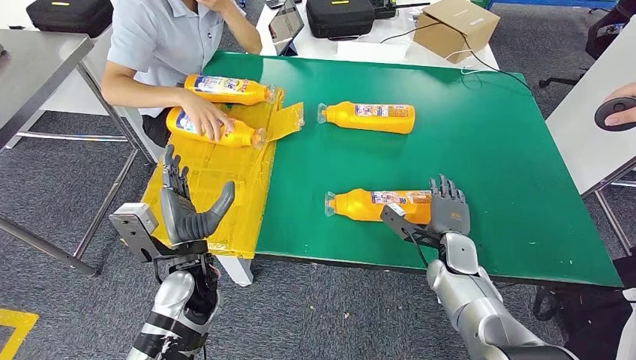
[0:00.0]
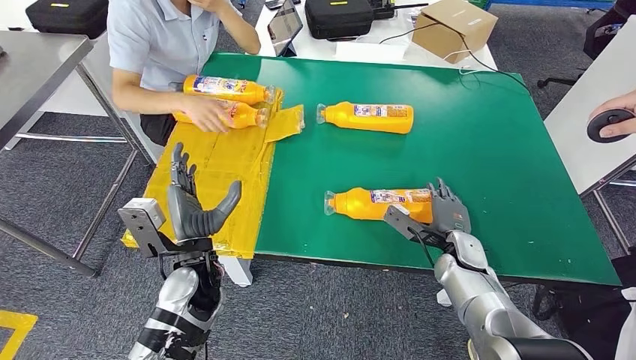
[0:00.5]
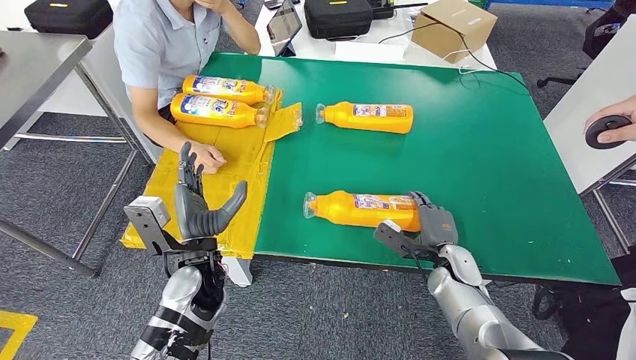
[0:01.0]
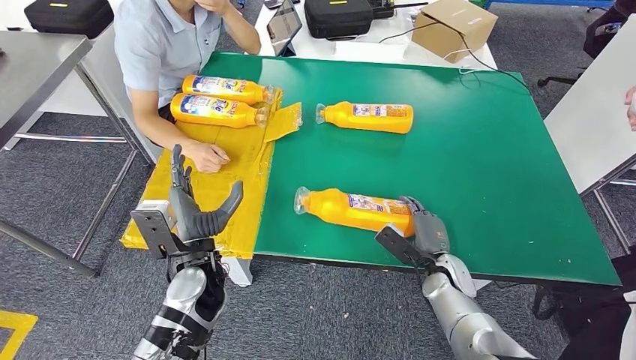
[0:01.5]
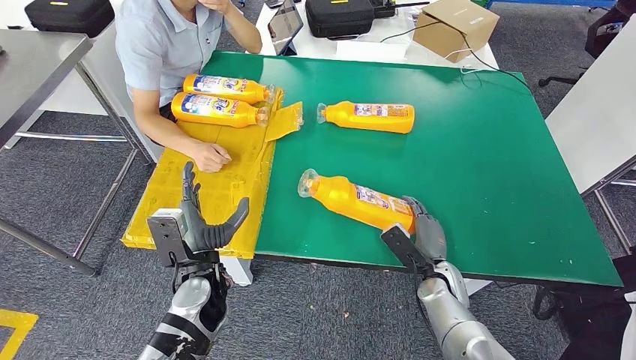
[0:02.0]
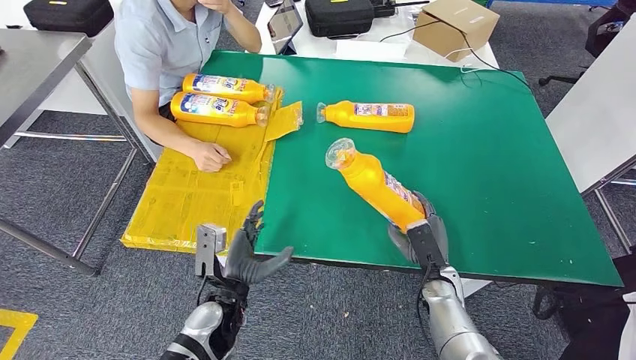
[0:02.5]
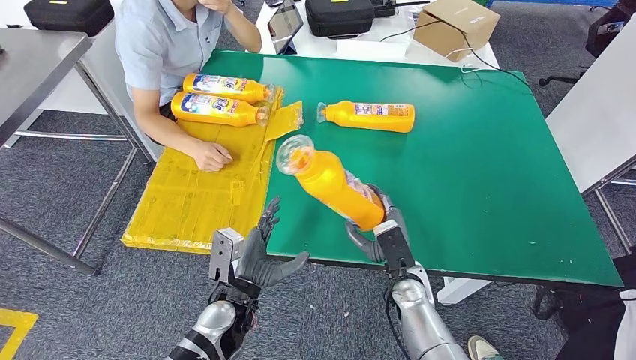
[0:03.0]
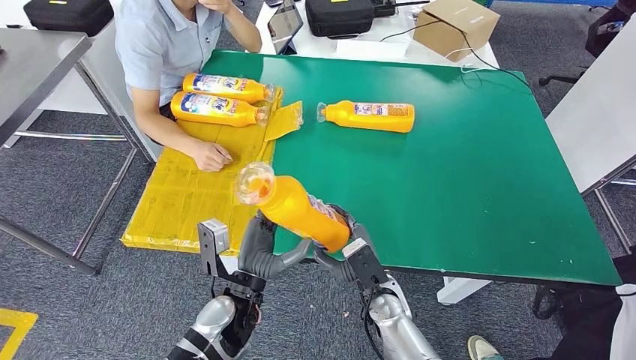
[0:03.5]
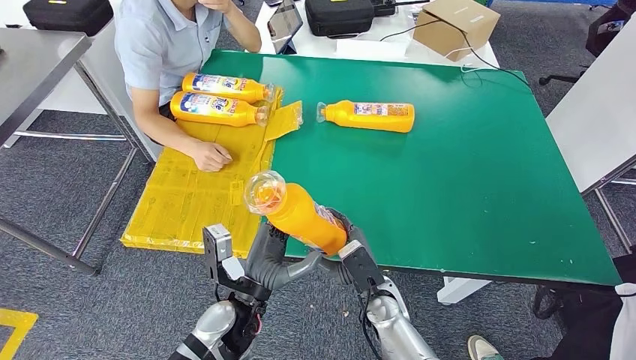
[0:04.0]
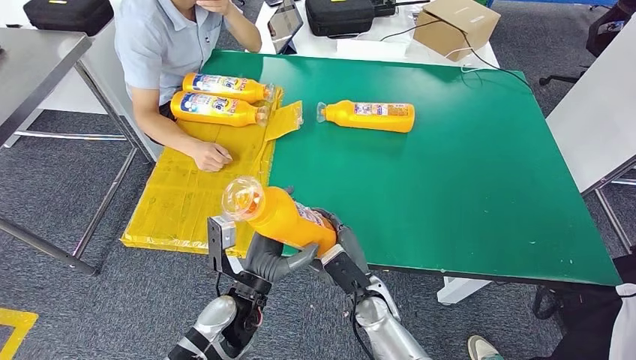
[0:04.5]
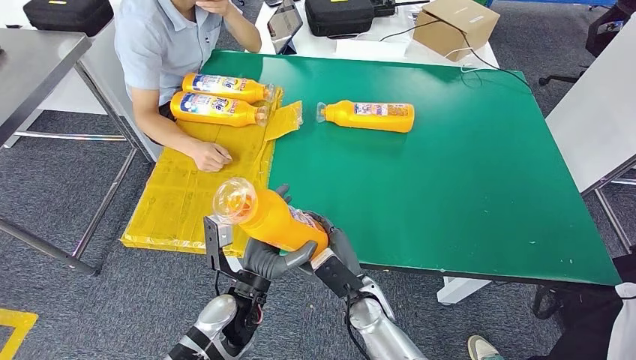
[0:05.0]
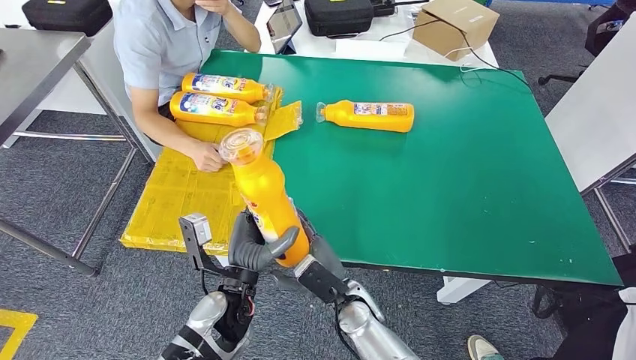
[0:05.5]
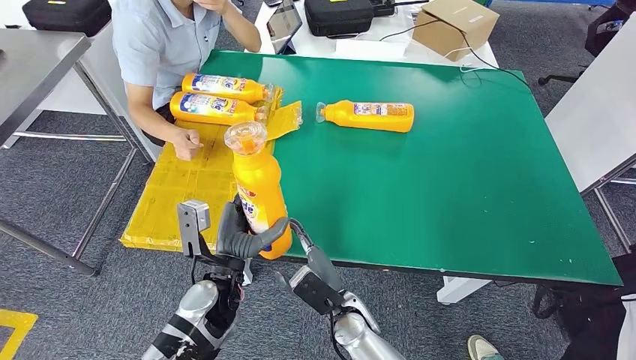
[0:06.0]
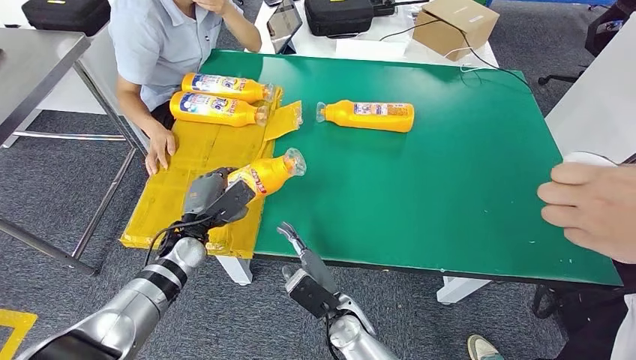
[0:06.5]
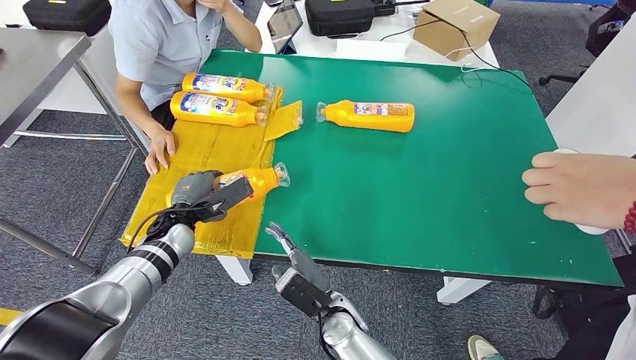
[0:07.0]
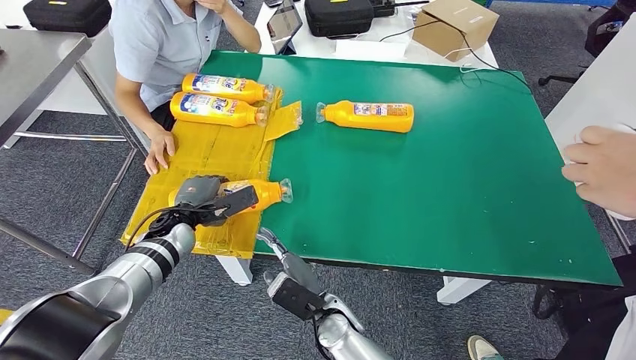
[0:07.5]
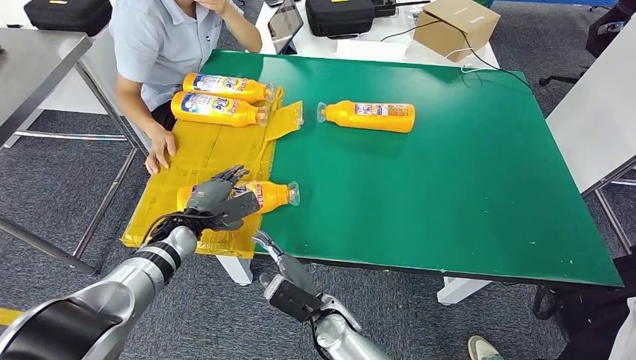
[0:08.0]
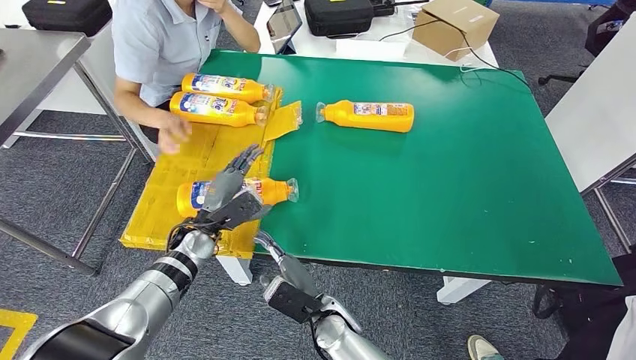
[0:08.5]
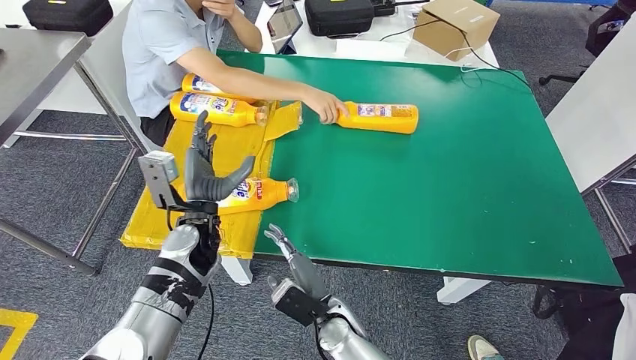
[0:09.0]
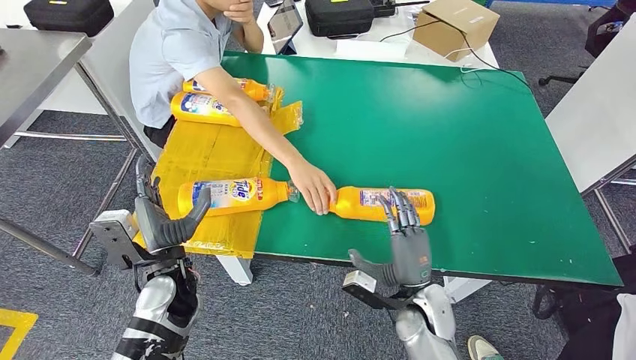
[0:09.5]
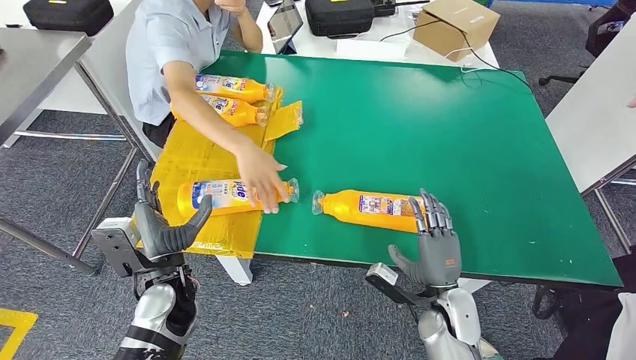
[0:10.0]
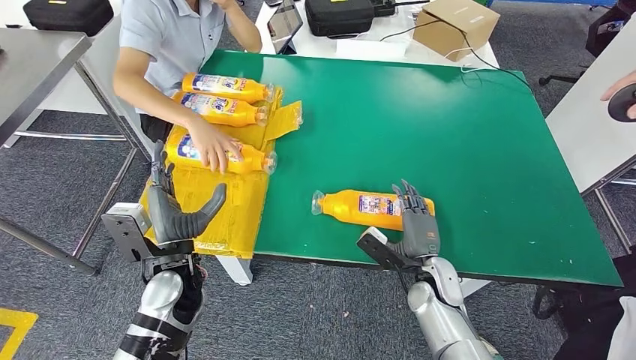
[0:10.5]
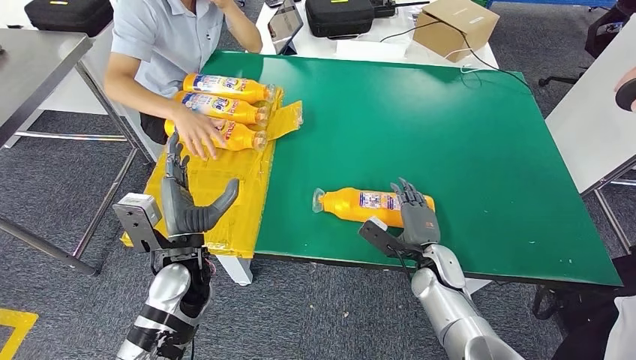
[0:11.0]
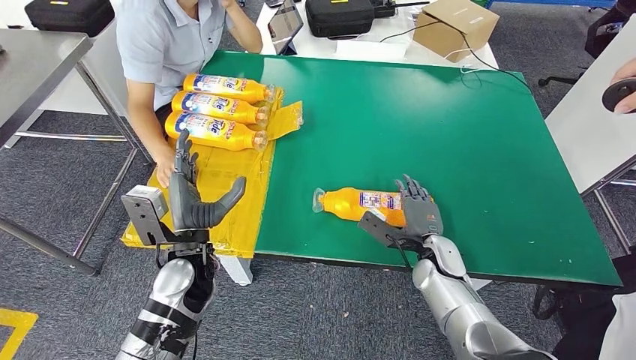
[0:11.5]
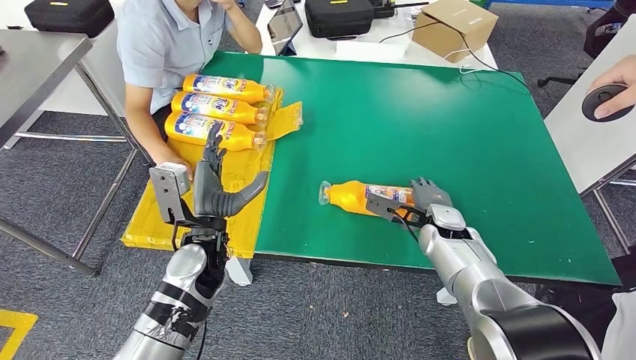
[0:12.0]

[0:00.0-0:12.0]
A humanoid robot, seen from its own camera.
Step, 0:00.0 to 0:03.0: Pick up the fast-moving consumer goods bottle from the table.
Step, 0:03.5 to 0:08.5: Flip the fast-moving consumer goods bottle to the front side.
0:00.0 to 0:02.0: The right hand shifts by some 5 cm.
0:02.0 to 0:04.0: The left hand travels to the right by approximately 5 cm. The right hand moves to the left, about 15 cm.
0:04.0 to 0:06.0: The left hand changes place by approximately 5 cm. Meanwhile the right hand moves to the left, some 5 cm.
0:06.0 to 0:08.0: The left hand travels forward and to the left by some 15 cm.

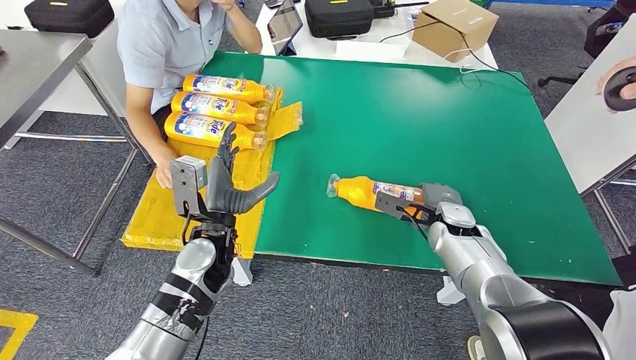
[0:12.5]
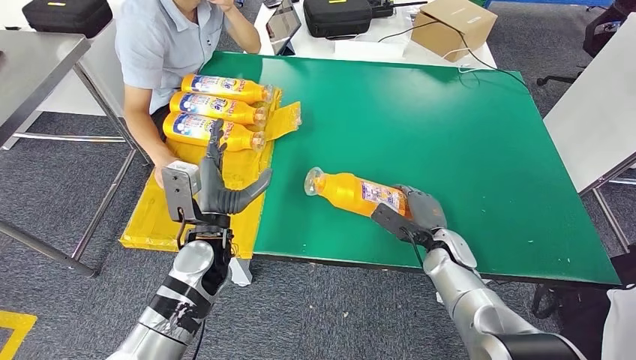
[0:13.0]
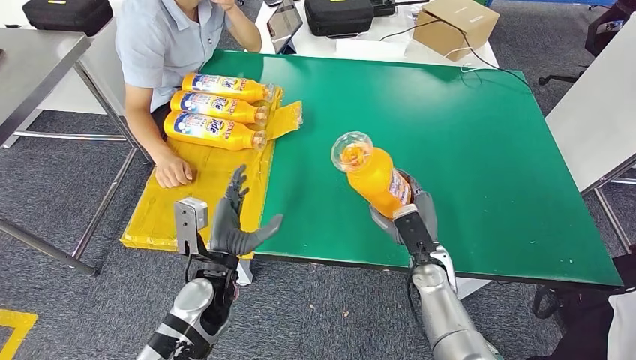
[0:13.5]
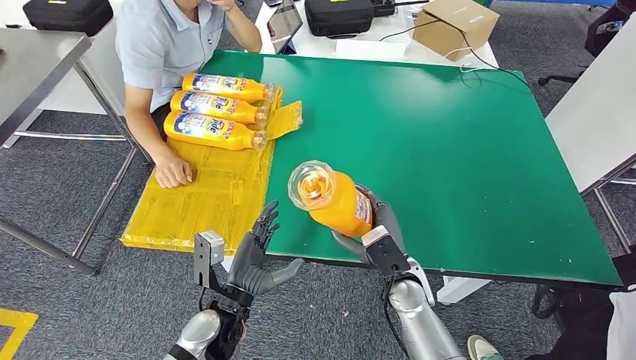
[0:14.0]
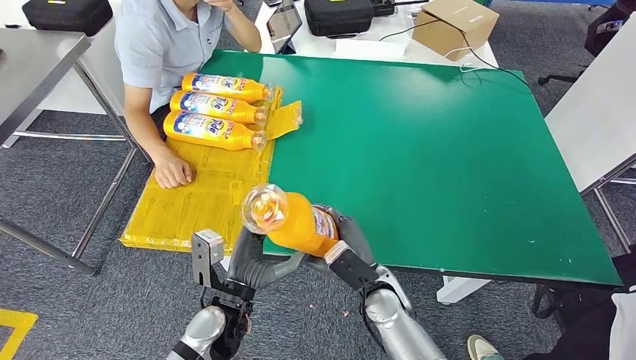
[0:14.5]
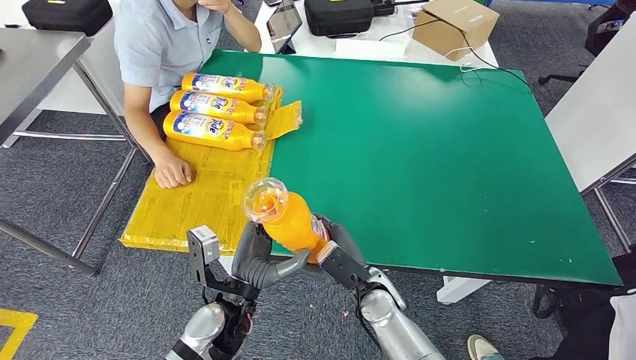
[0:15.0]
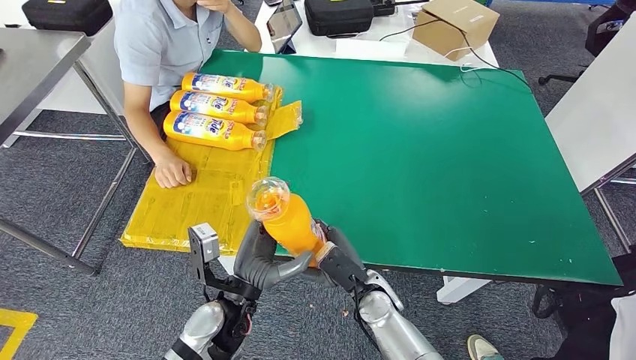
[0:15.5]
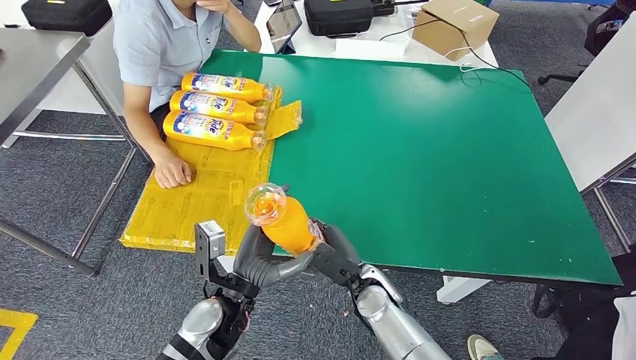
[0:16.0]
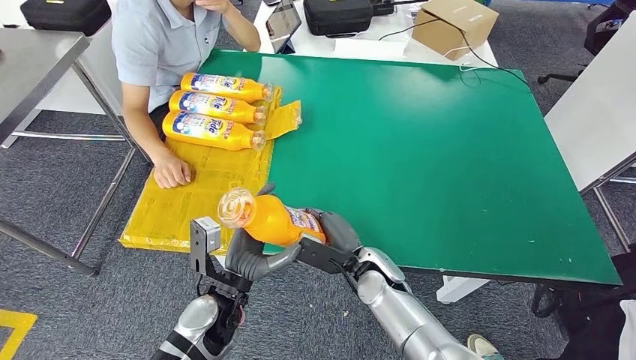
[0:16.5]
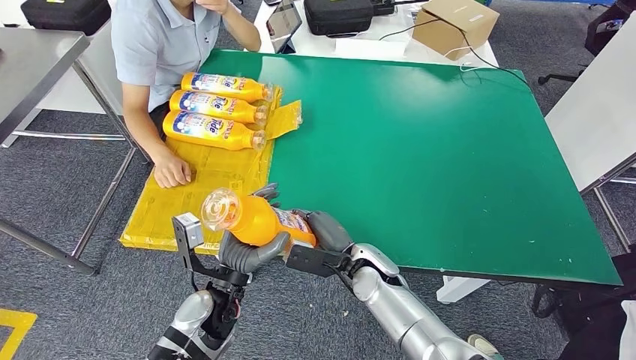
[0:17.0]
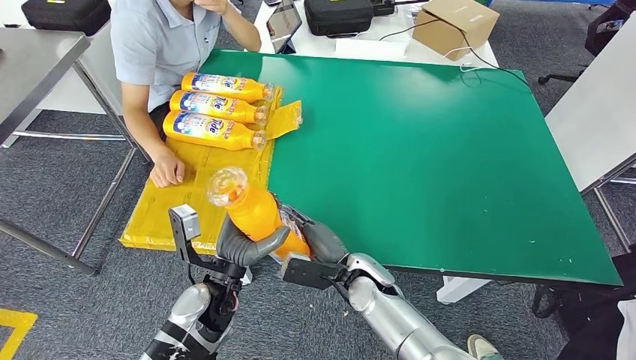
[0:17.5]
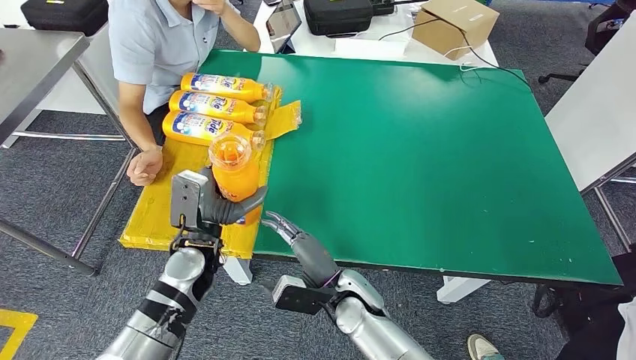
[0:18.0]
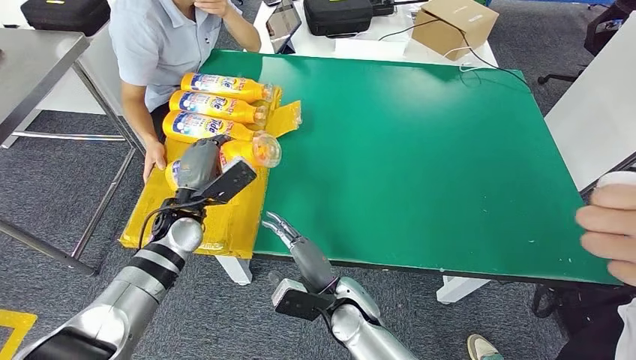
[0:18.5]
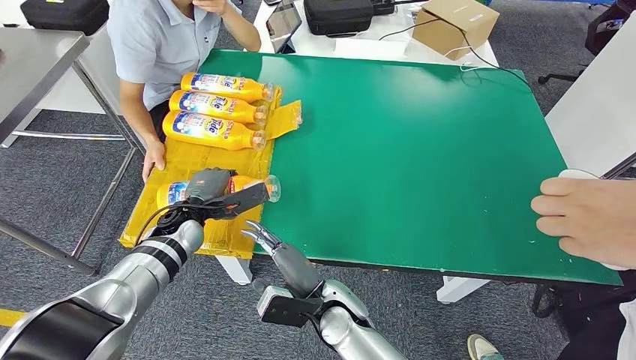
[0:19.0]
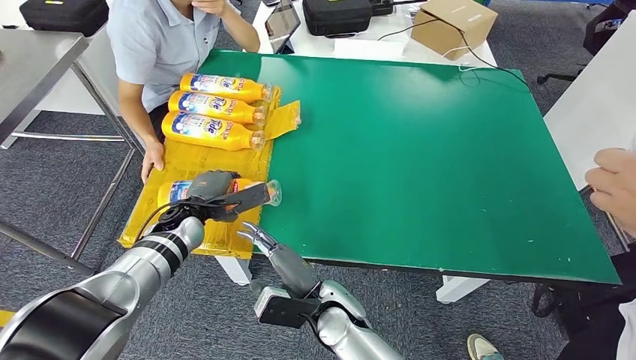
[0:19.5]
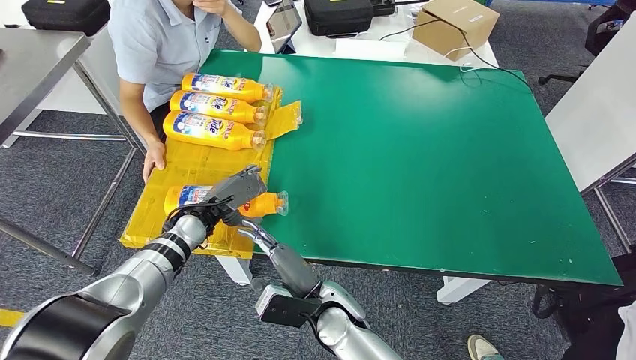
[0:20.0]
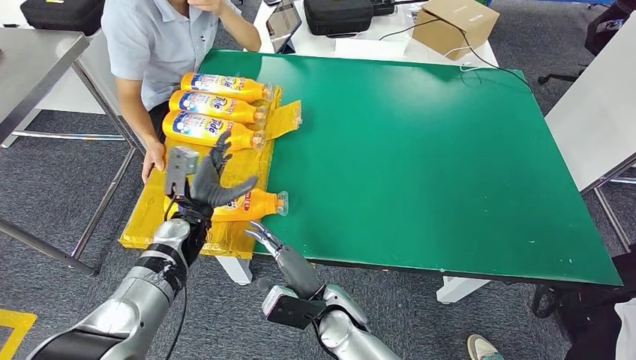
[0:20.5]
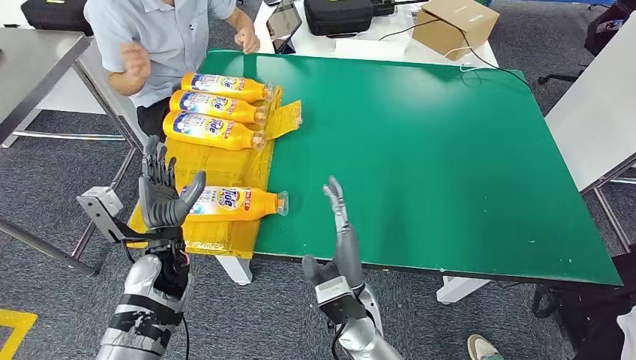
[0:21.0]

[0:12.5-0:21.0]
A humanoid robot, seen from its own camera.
Step, 0:14.5 to 0:20.5: Flip the fast-moving consumer goods bottle to the front side.
